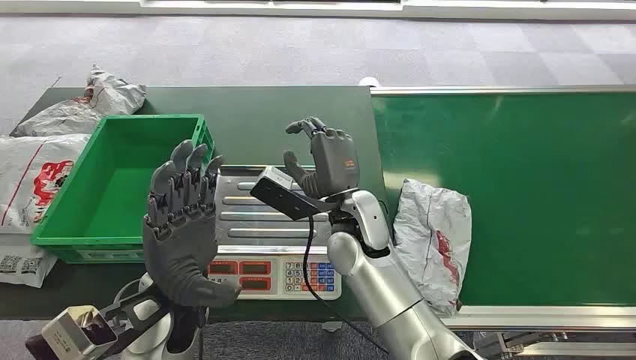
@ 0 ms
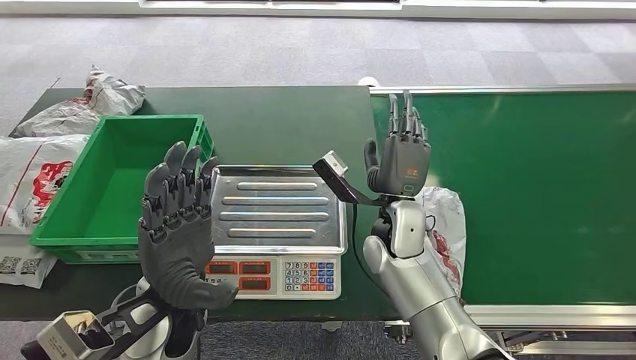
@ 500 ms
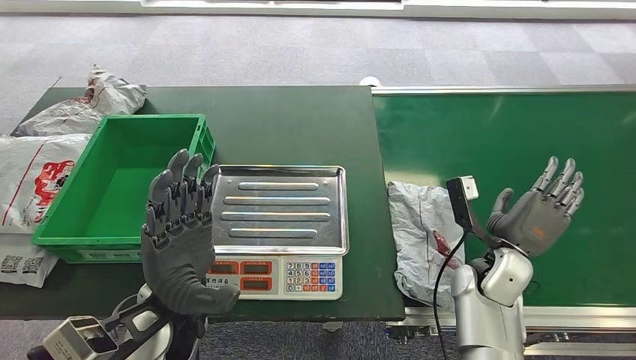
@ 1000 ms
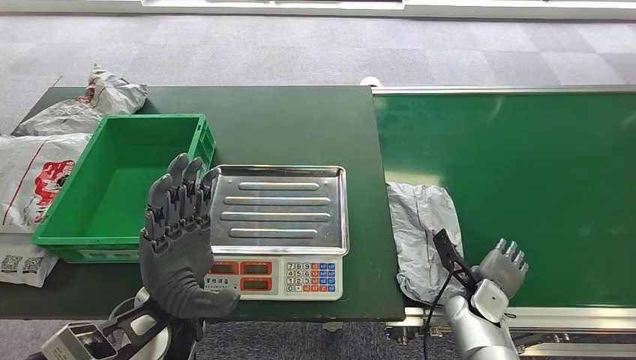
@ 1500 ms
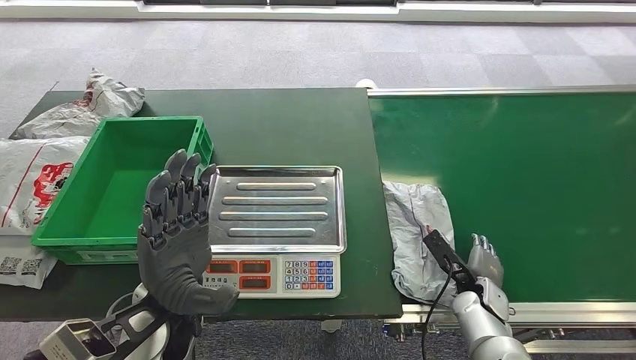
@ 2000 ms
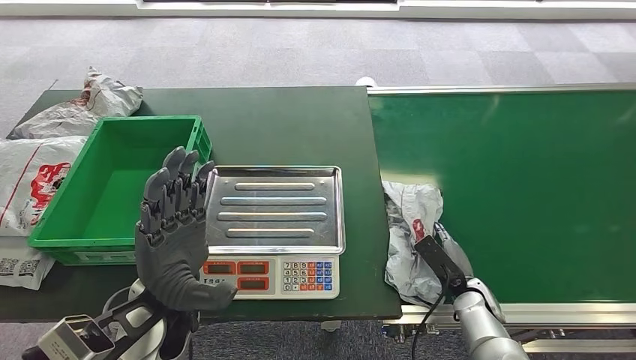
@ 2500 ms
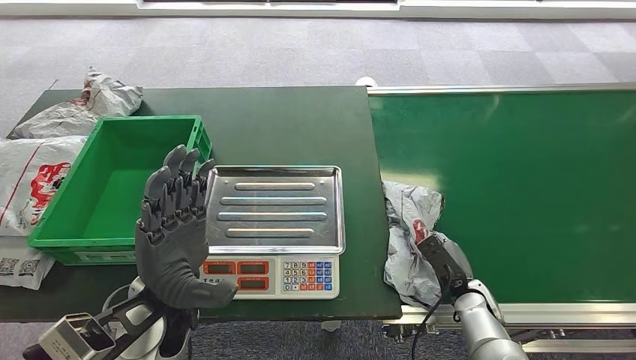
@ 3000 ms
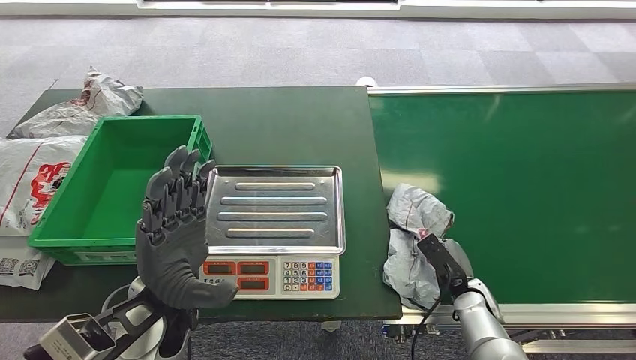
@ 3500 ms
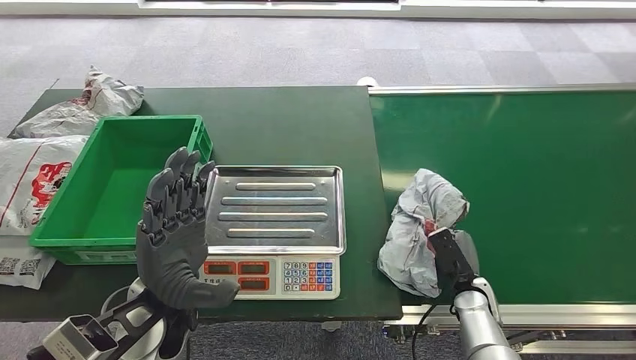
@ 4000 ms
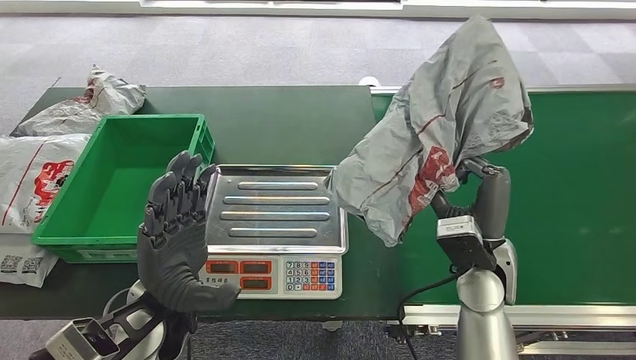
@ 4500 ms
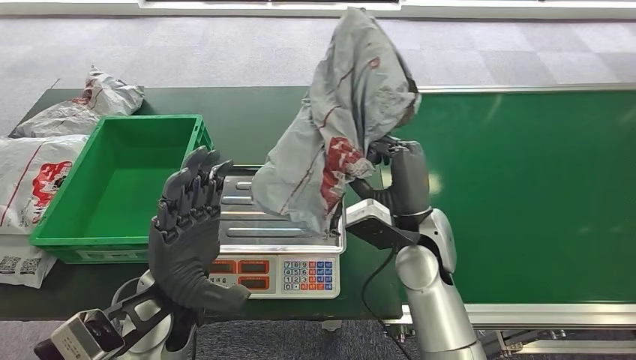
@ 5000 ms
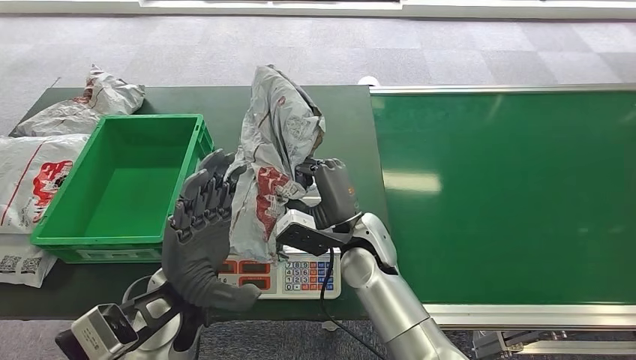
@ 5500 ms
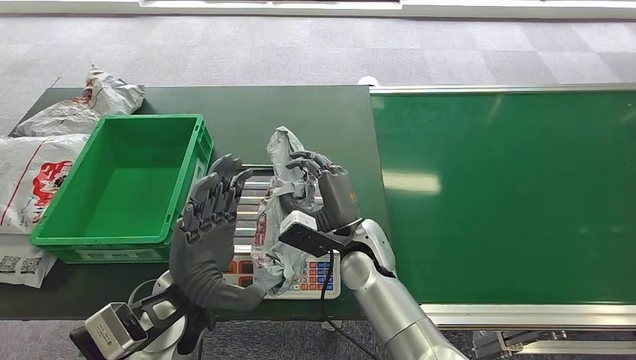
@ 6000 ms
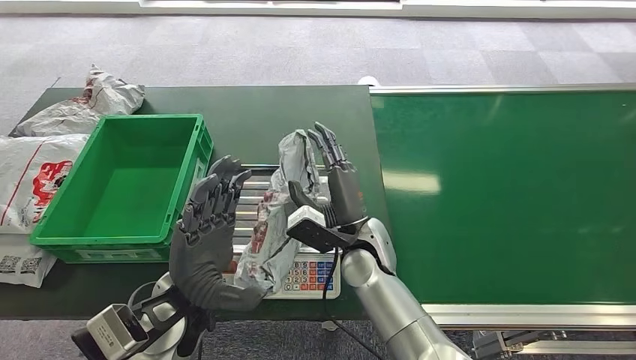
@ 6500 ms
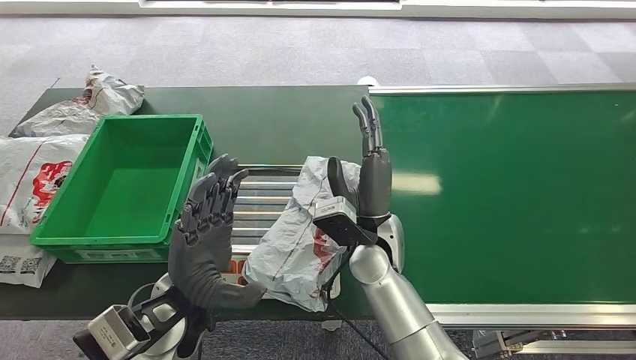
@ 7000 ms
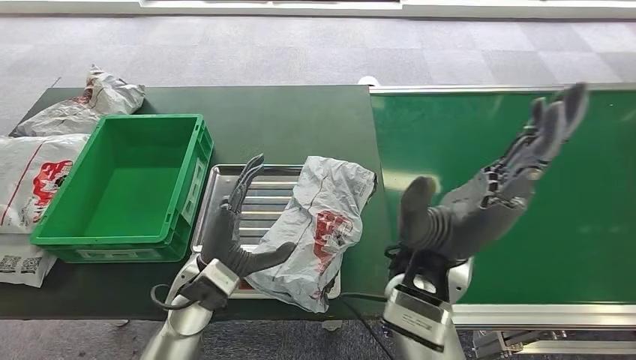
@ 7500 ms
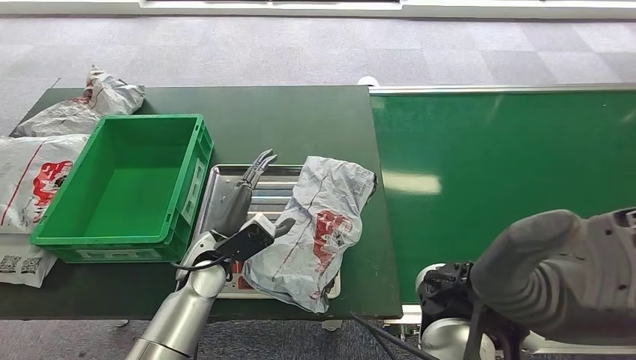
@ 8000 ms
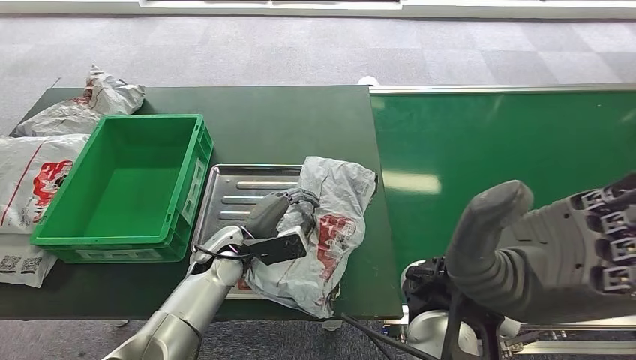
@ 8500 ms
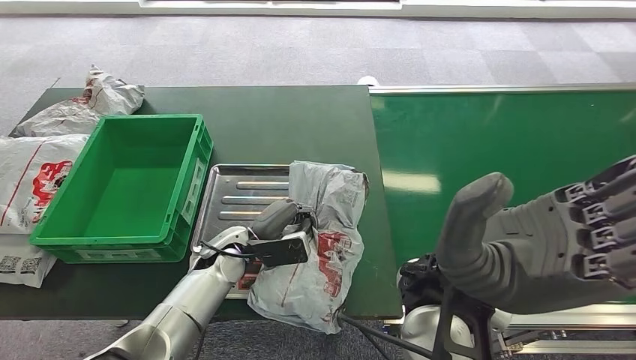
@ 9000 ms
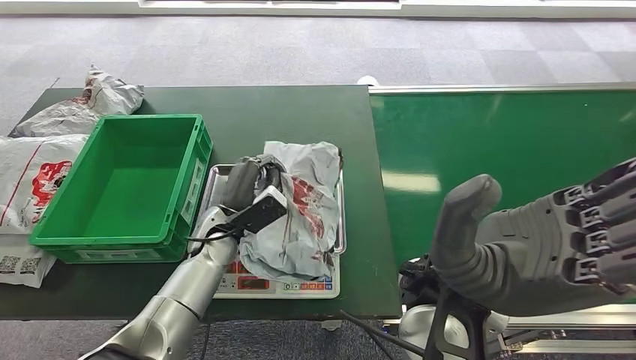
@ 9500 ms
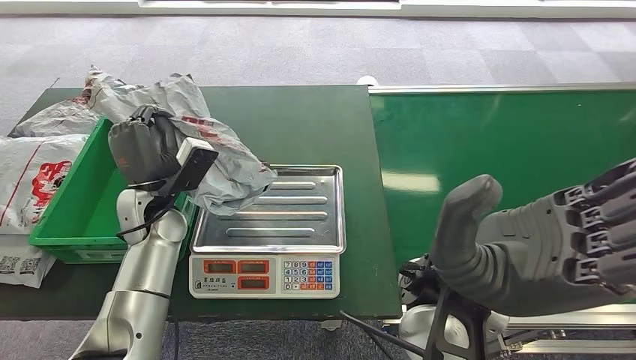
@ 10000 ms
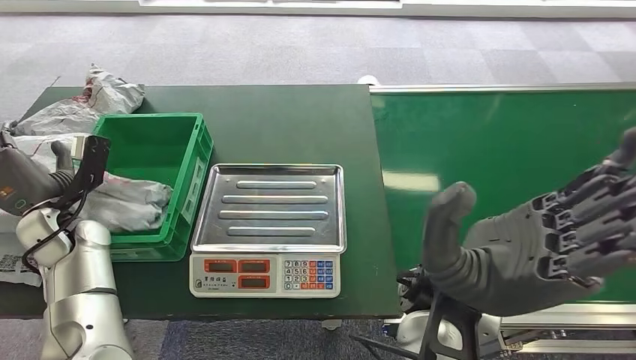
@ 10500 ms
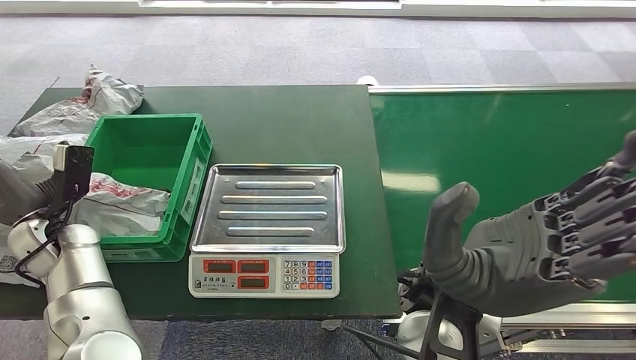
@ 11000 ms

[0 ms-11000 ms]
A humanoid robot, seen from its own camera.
Task of the whole recording: Weigh the package on the weighing device and place it in the left basket.
Step, 0 ms to 5000 ms: Pick up the package from the conveyor belt.
Step, 5500 ms to 7500 ms: Place the package onto the inbound machine.
Step, 8000 ms to 10000 ms: Pick up the package from the inbound machine.
Step, 10500 ms to 11000 ms: Place the package into the parcel locker.
5500 ms to 7500 ms: The right hand moves upward and backward, about 15 cm, while the left hand heads downward, covering some 5 cm.
7500 ms to 9000 ms: The left hand heads forward and downward, covering roughly 10 cm. Meanwhile the right hand shifts approximately 5 cm upward.

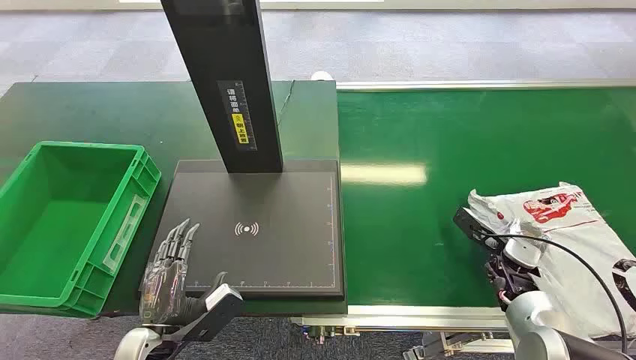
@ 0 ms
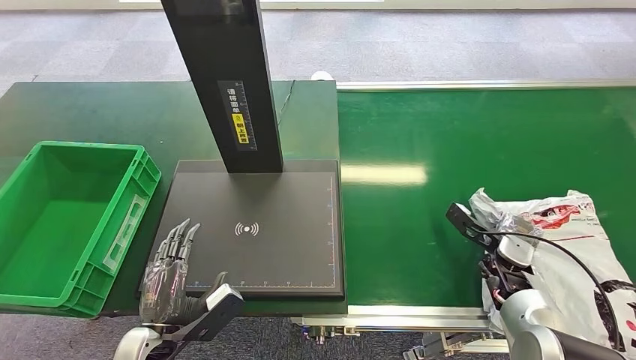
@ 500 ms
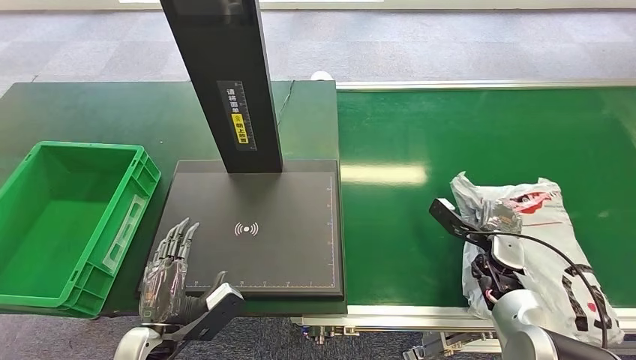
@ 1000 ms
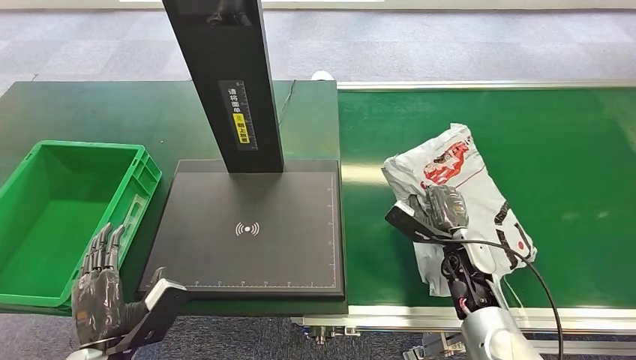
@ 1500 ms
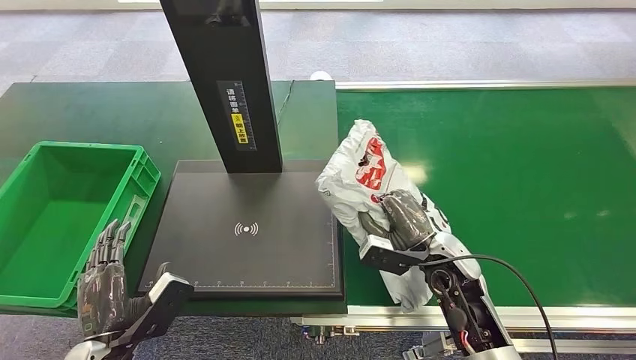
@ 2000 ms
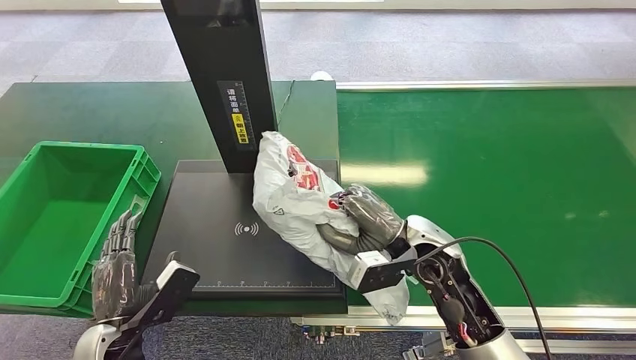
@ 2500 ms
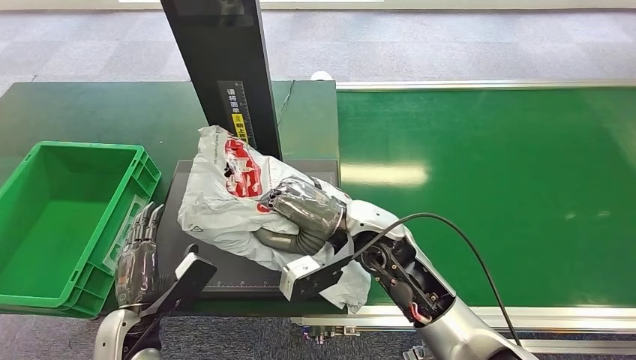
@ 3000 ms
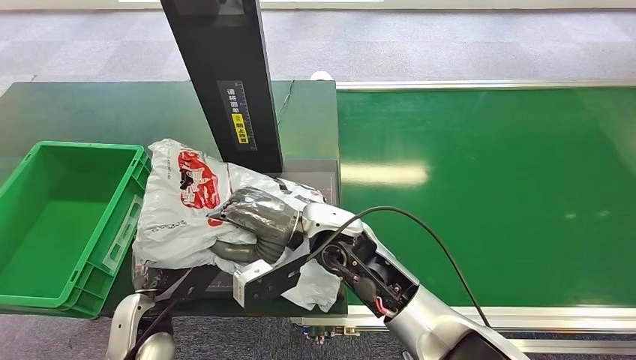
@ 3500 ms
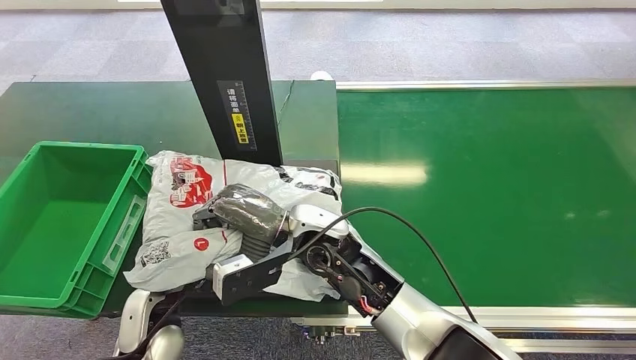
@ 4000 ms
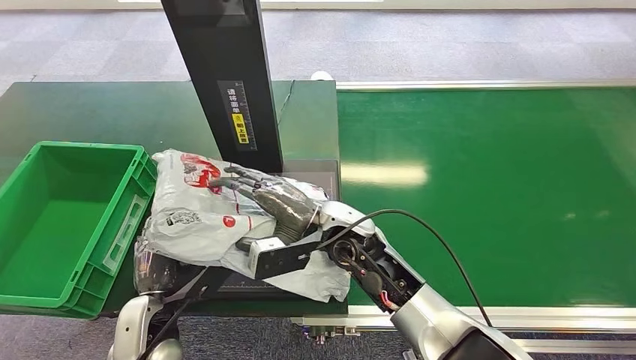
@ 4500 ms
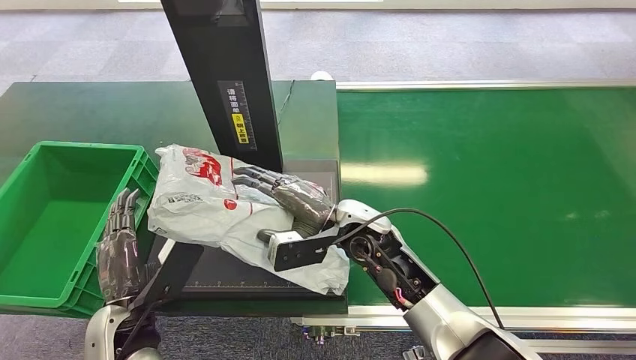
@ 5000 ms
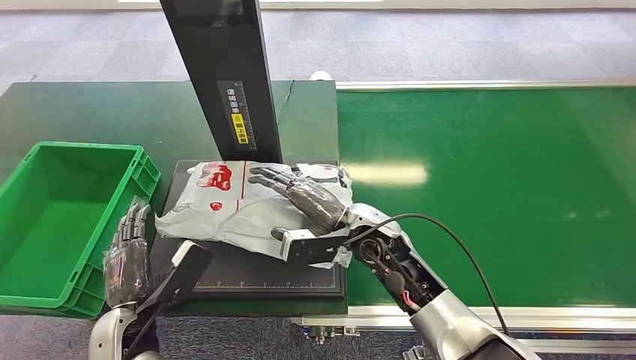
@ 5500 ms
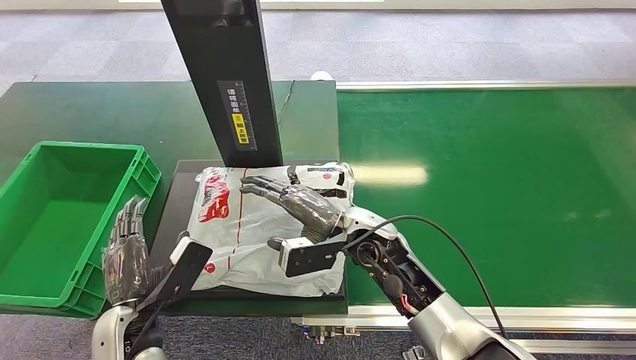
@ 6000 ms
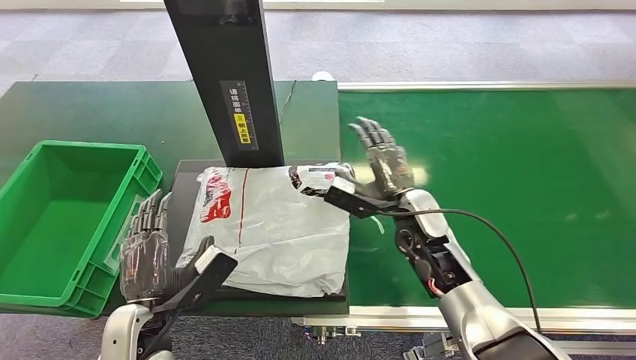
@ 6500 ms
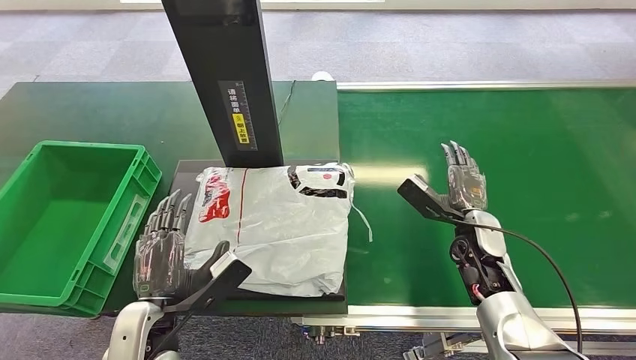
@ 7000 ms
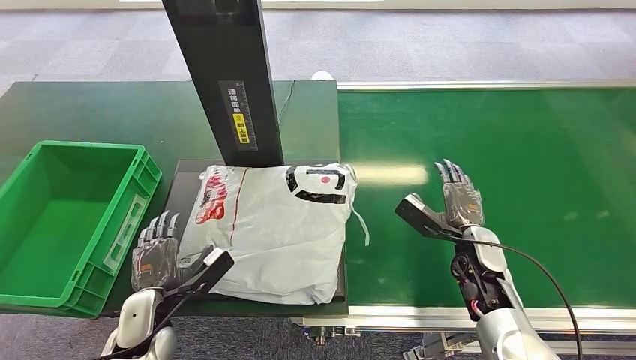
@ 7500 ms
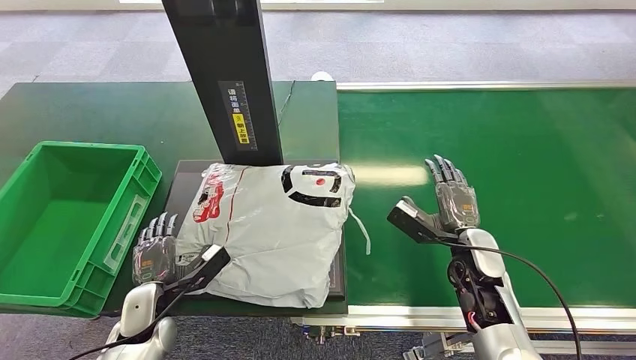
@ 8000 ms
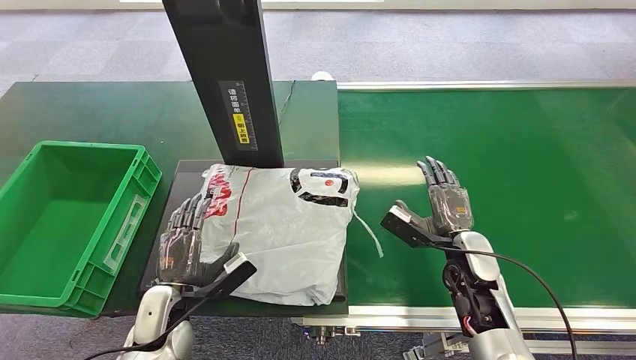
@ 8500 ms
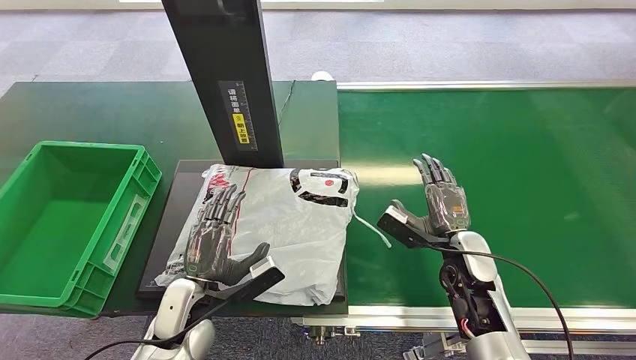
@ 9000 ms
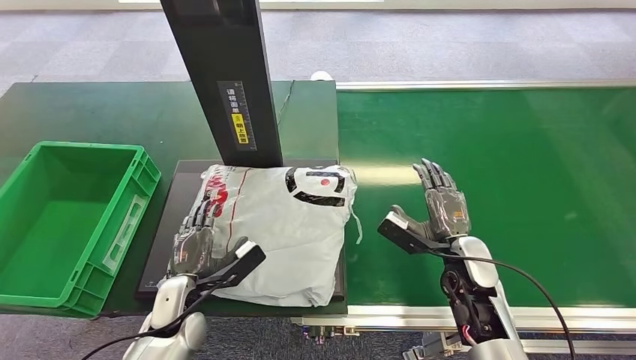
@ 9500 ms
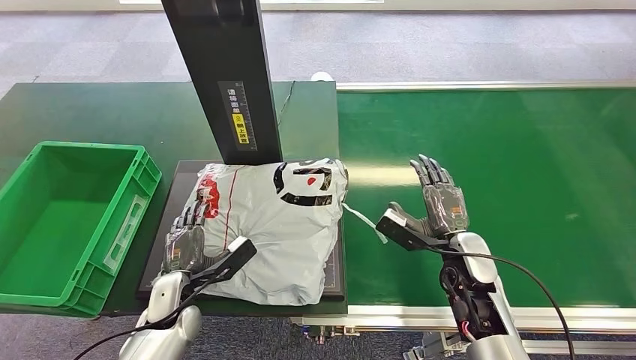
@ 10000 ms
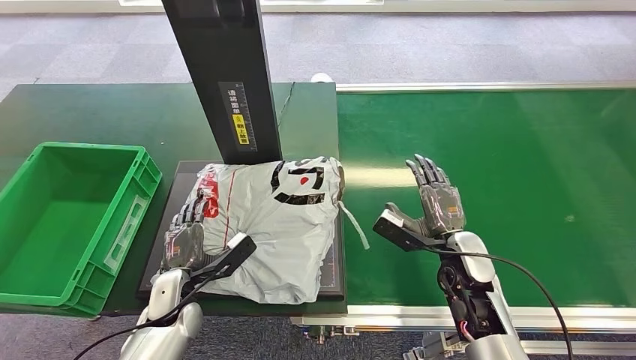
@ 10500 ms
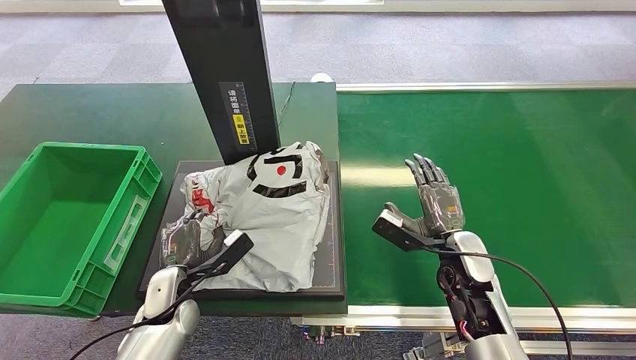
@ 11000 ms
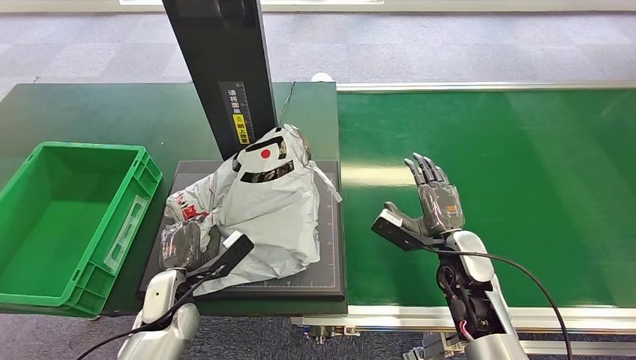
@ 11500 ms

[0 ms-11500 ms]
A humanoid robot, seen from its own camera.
Task of the whole recording: Weigh the package on the weighing device and place it in the left basket.
Step, 0 ms to 1500 ms: Pick up the package from the conveyor belt.
Step, 2500 ms to 5500 ms: Place the package onto the inbound machine.
4000 ms to 6000 ms: The right hand shifts about 10 cm to the right.
6000 ms to 7500 ms: The right hand goes roughly 20 cm to the right. Meanwhile the left hand goes approximately 5 cm downward.
7500 ms to 9500 ms: The left hand ends up about 5 cm from where it was; the right hand ends up approximately 5 cm from where it was.
9500 ms to 11500 ms: The hands move only a little.
